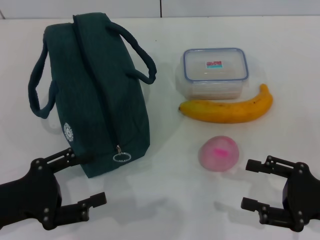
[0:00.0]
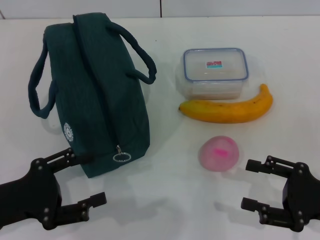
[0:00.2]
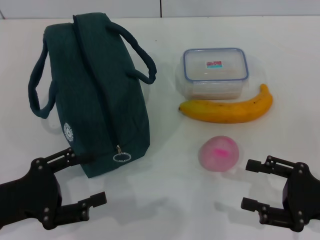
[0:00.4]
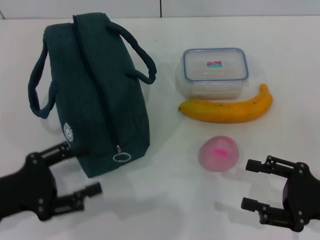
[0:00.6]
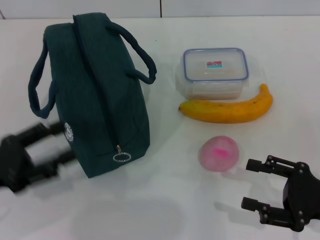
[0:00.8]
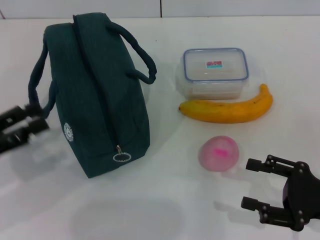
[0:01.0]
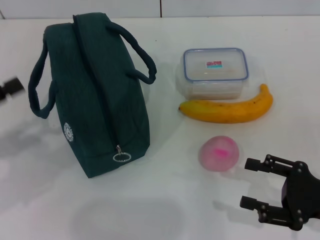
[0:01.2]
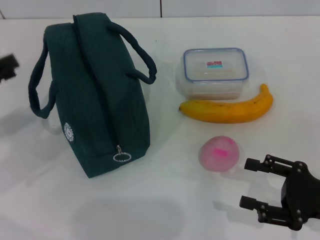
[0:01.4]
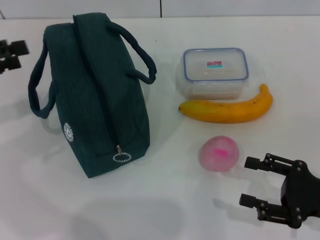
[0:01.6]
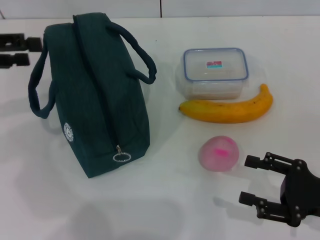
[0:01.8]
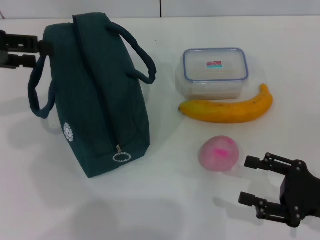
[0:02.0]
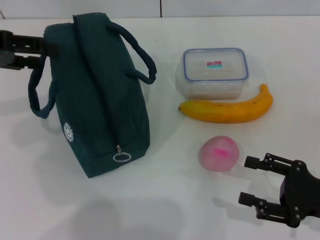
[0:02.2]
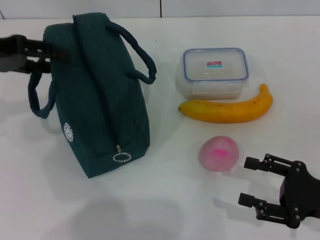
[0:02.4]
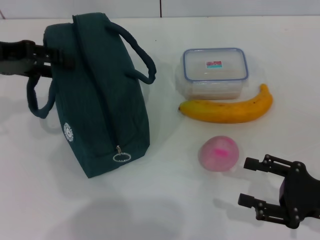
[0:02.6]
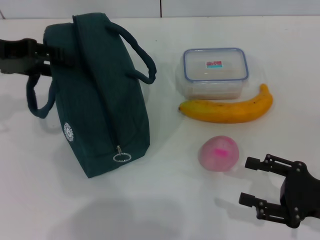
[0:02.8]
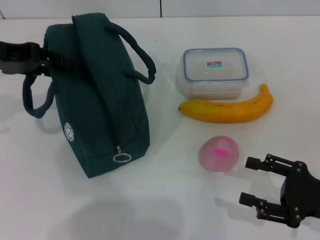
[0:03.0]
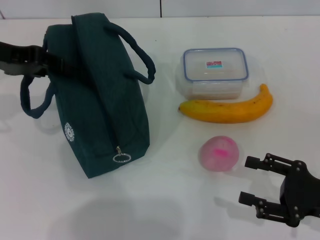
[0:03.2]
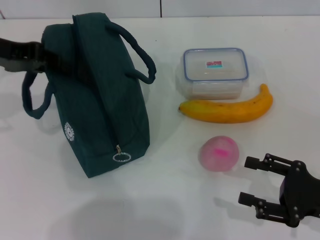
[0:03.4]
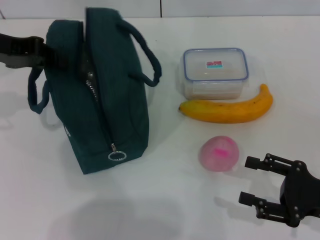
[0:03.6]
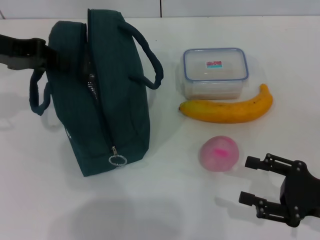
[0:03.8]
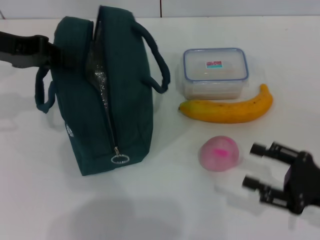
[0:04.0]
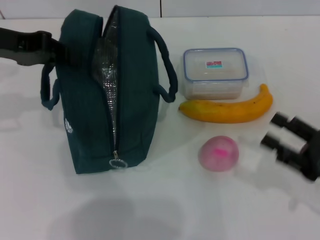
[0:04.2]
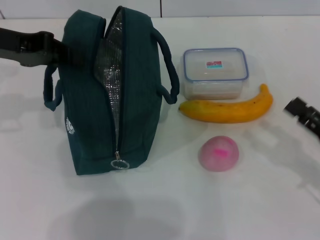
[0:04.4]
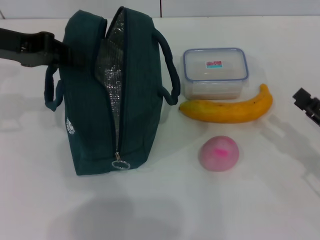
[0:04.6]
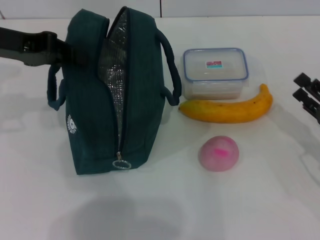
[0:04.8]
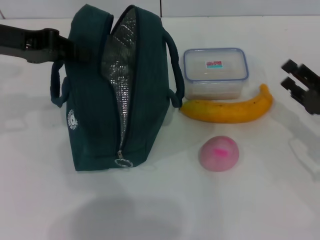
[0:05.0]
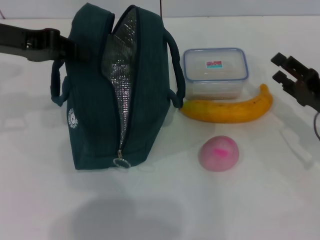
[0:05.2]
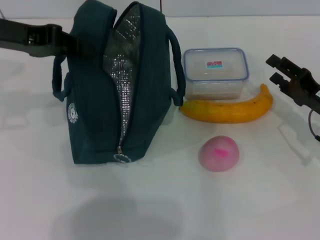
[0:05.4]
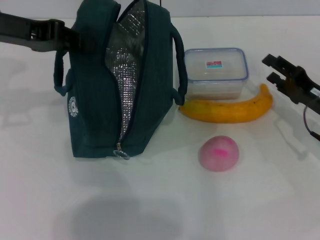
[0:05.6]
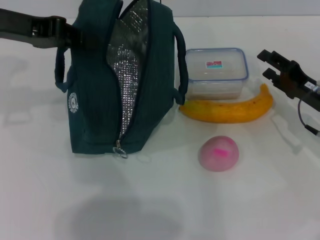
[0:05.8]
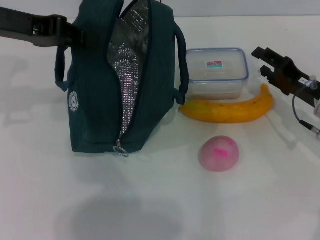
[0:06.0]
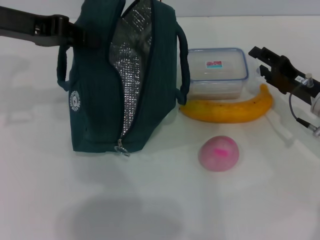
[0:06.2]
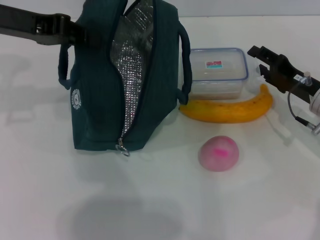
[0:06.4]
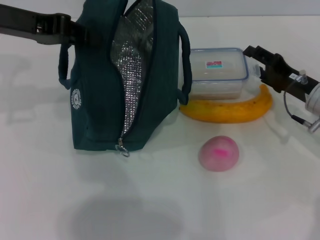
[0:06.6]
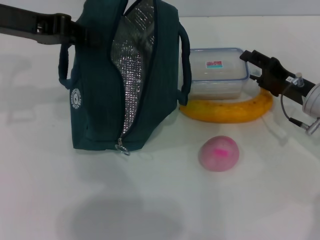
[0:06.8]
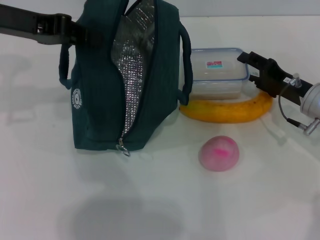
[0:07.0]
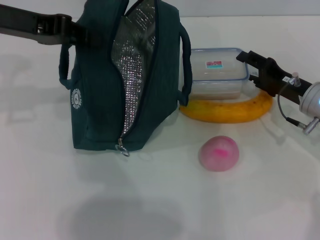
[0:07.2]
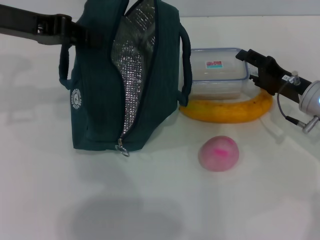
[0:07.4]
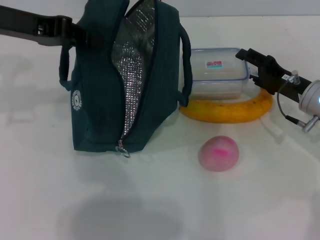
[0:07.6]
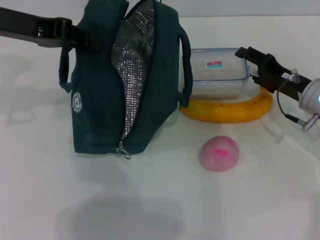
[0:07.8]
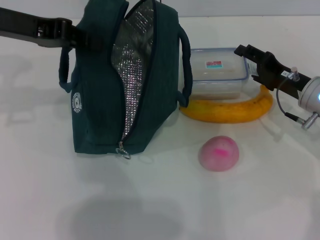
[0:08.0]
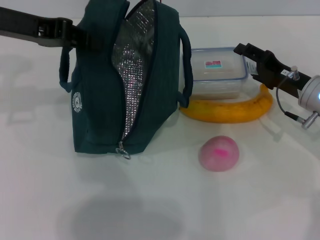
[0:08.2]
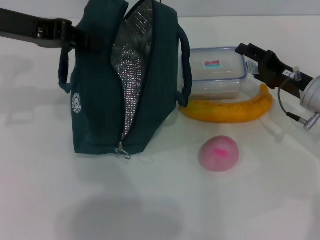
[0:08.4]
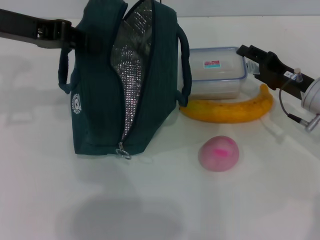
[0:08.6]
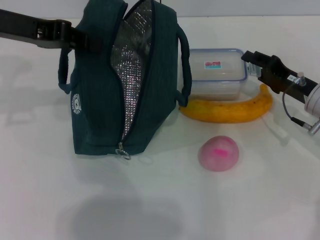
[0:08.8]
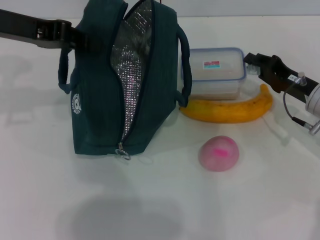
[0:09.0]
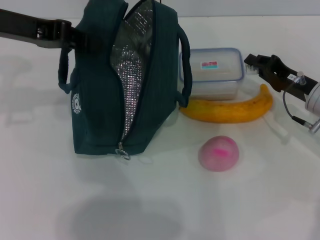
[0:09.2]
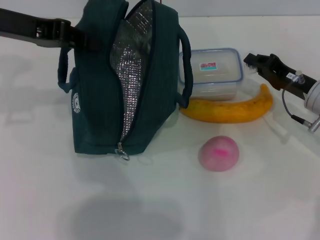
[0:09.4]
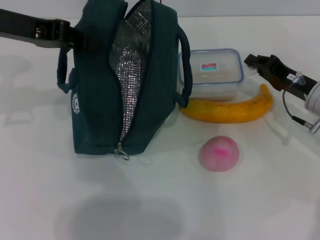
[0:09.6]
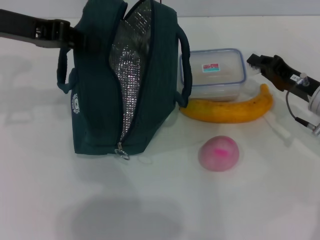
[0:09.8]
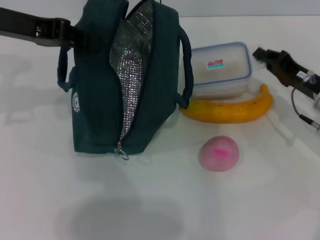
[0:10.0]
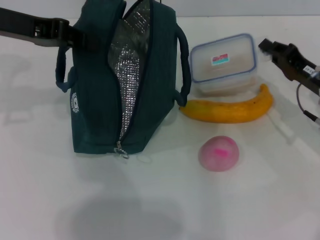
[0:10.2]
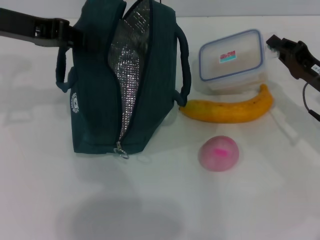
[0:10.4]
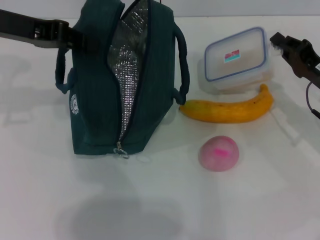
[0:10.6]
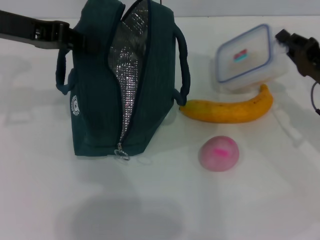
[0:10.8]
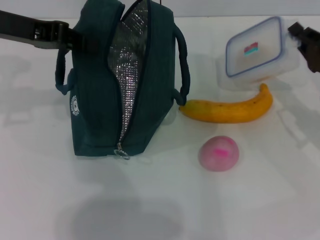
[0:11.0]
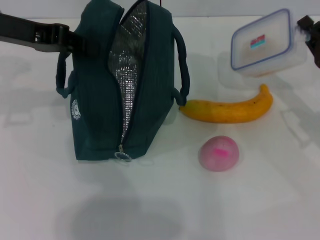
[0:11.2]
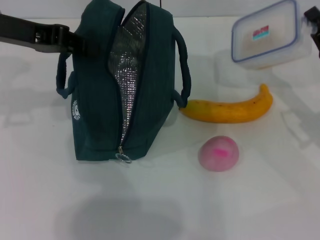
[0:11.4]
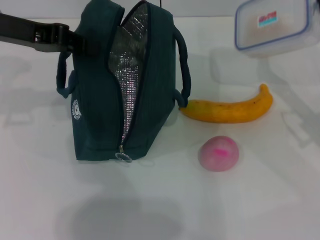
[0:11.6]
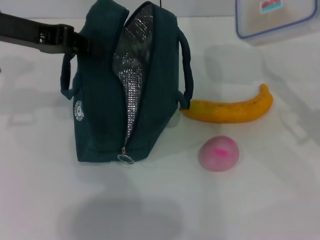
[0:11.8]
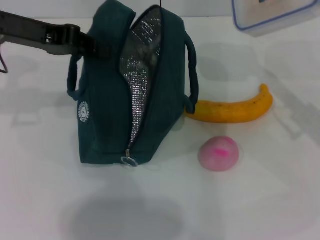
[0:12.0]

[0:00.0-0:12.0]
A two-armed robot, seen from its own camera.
Step, 0:00.0 to 0:04.0: Hold the lunch bag with your left hand.
Step, 0:04.2 to 0:10.0: Pick up the lunch box with your right hand.
0:00.0 to 0:01.6: The left gripper moves forward, upward and to the left, approximately 20 cm.
0:01.6 to 0:03.0: The left gripper shifts approximately 10 cm to the right and forward.
0:03.0 to 0:04.4: The left gripper closes.
0:04.4 to 0:06.0: The right gripper heads forward, covering about 15 cm.
0:06.0 to 0:07.6: There are only small adjustments of the grippers.
0:07.6 to 0:09.0: Both grippers stay about where they are.
0:09.0 to 0:10.4: The right gripper closes.
0:10.4 to 0:12.0: The right gripper goes about 5 cm upward.

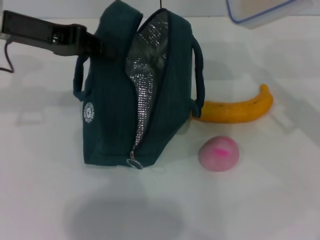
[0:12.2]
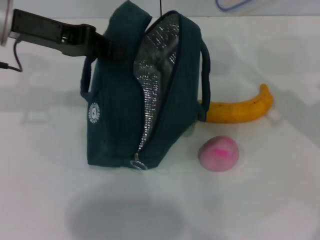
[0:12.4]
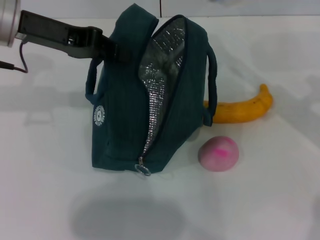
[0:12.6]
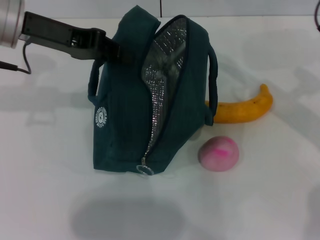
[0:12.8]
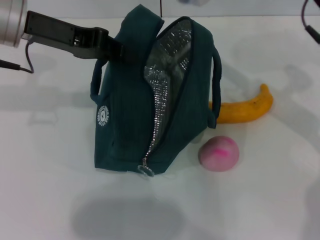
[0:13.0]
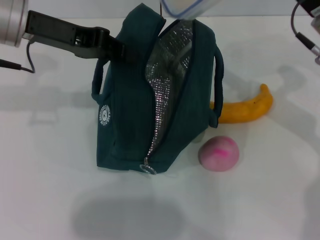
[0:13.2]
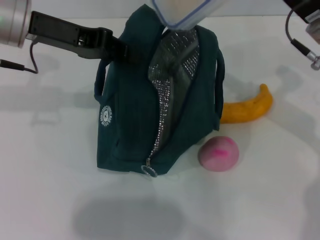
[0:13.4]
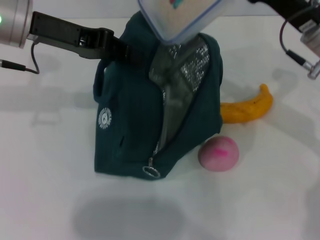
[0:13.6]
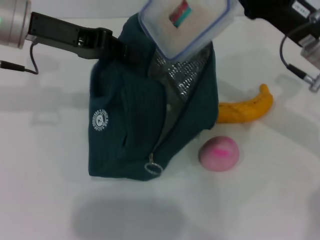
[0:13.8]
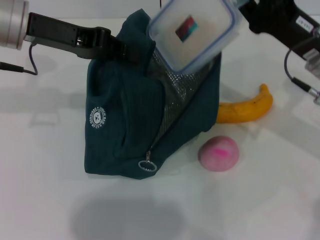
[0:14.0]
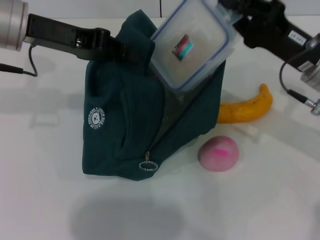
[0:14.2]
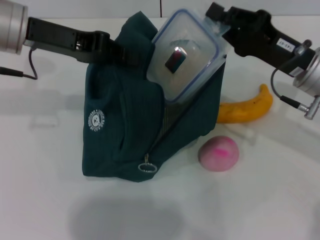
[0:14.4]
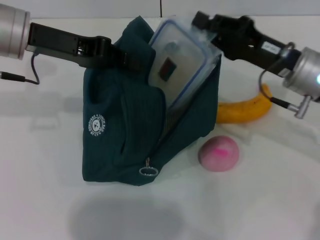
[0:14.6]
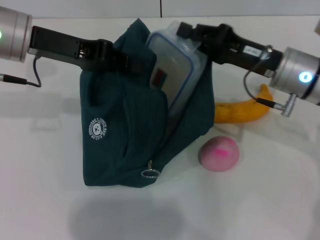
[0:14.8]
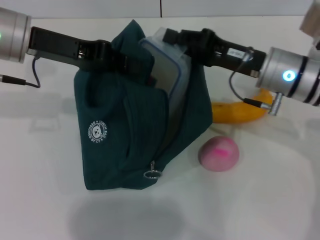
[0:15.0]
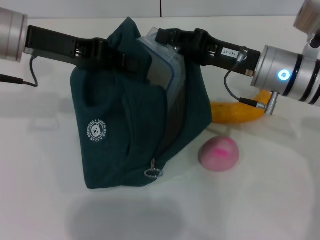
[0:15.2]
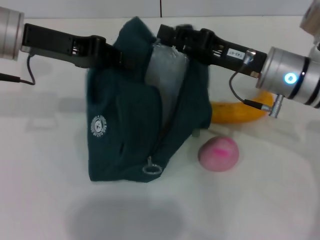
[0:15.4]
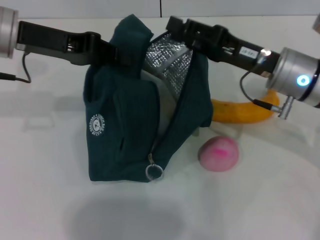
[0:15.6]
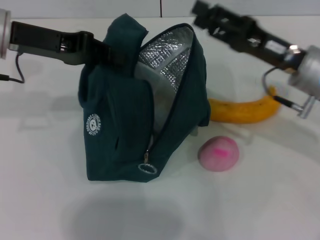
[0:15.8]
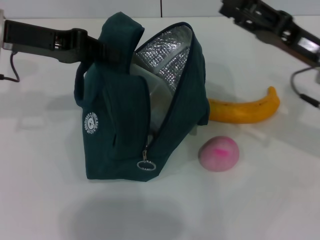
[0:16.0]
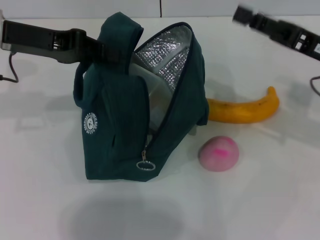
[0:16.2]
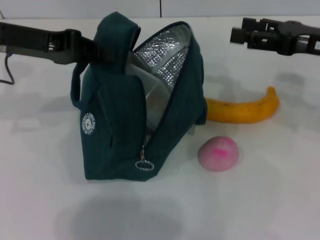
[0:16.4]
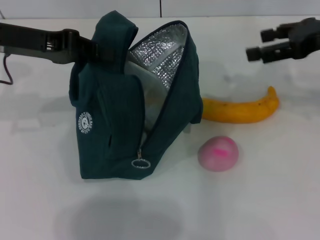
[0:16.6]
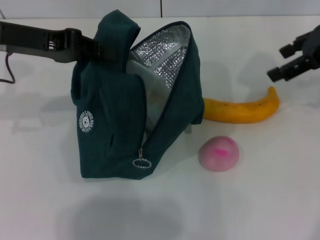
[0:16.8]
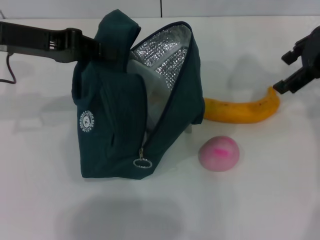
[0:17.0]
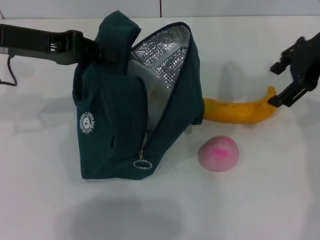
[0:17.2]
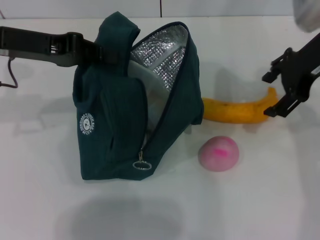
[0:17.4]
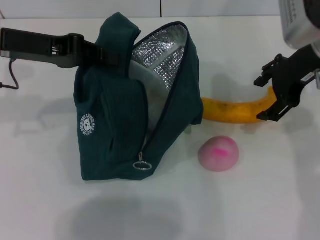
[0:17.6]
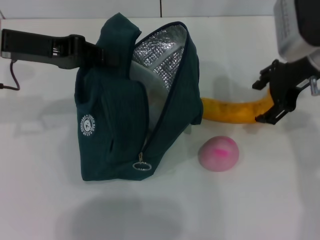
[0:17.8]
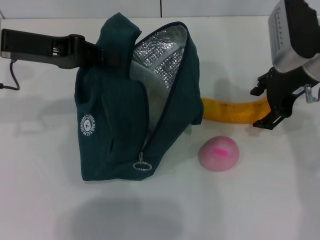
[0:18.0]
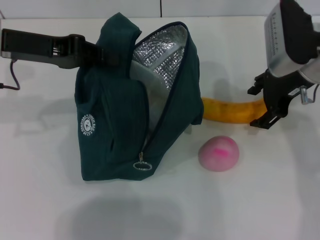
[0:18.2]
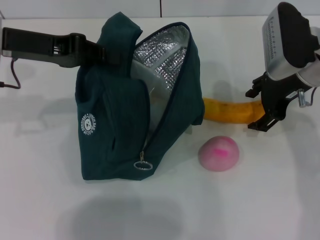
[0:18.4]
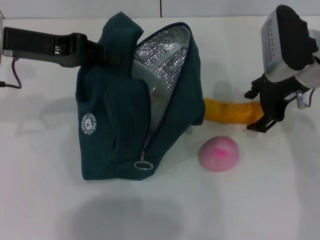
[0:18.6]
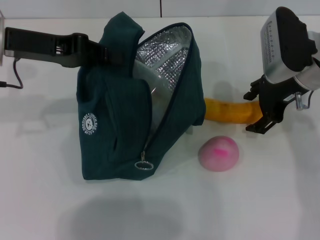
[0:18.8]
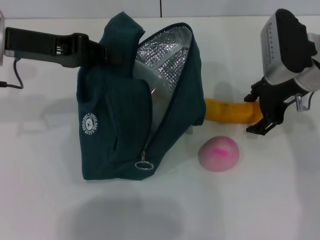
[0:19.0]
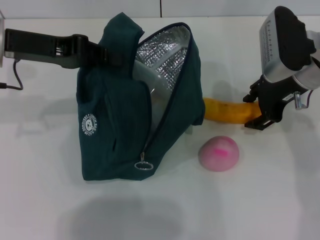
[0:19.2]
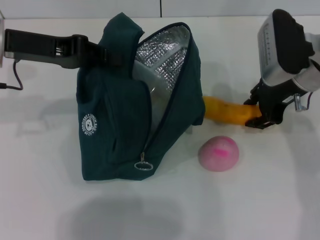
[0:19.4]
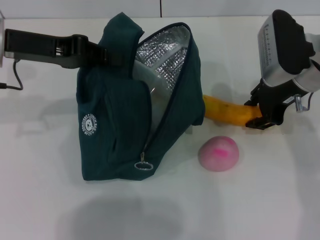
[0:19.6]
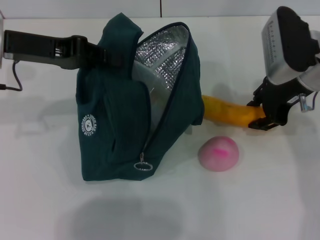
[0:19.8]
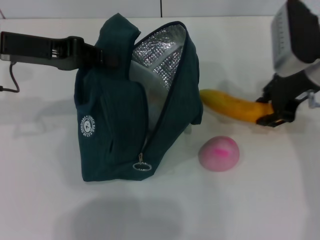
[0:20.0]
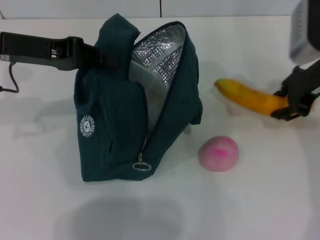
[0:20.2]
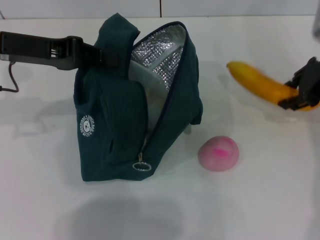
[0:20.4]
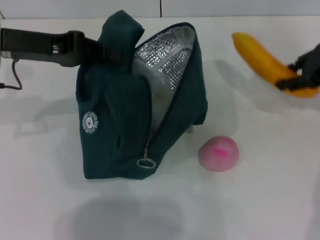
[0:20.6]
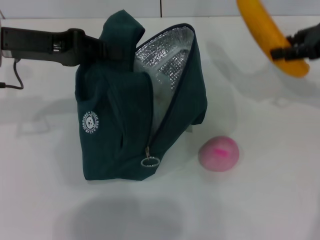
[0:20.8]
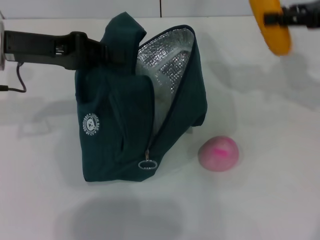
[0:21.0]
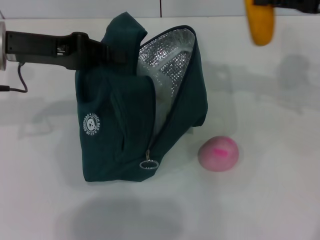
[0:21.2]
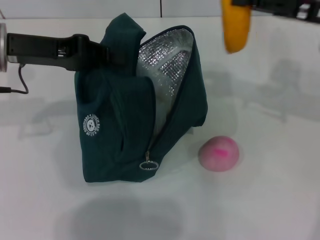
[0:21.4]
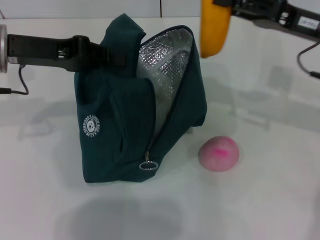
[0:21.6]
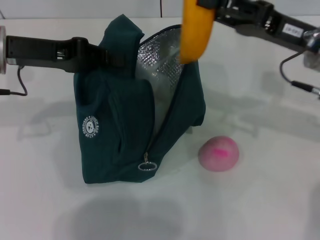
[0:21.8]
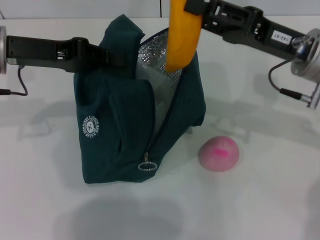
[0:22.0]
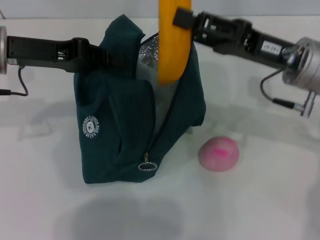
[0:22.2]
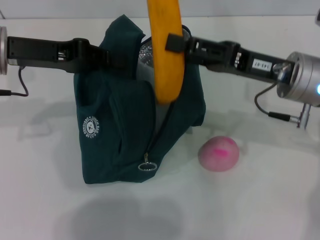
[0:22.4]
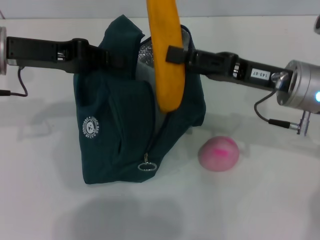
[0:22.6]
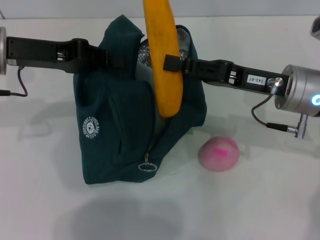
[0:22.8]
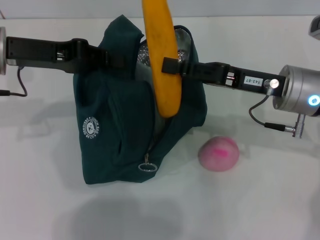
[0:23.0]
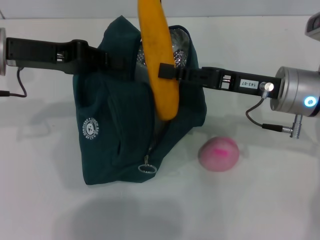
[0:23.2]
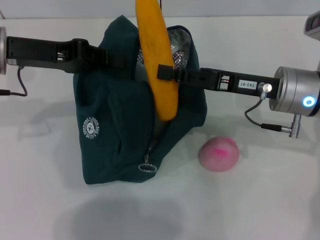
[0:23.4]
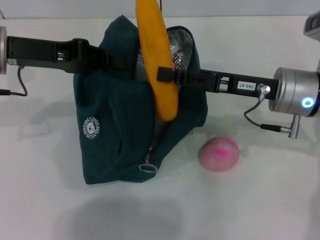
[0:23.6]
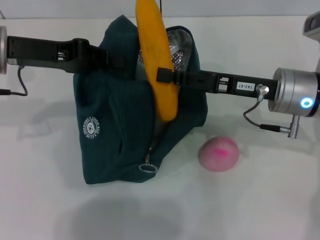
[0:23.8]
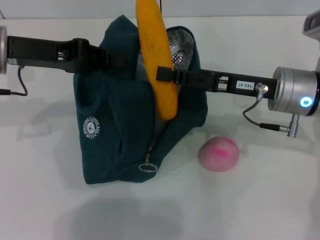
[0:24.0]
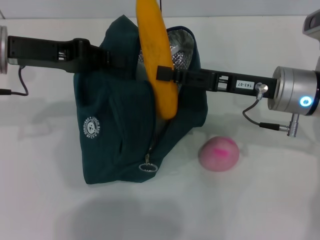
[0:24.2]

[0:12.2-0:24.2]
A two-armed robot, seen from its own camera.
Step, 0:12.2 to 0:15.4: Place the lunch box into the lunch bag with your right hand.
Step, 0:15.6 to 0:19.4: Take the banana with your right hand.
0:12.2 to 0:13.8: The right gripper goes about 5 cm to the left.
0:13.8 to 0:15.2: The right gripper goes some 5 cm to the left.
0:15.2 to 0:16.6: The right gripper shifts roughly 15 cm to the right and upward, and opens.
0:16.6 to 0:18.2: The right gripper travels to the left and downward by roughly 10 cm.
0:18.2 to 0:19.8: The right gripper closes.
0:19.8 to 0:21.2: The right gripper shifts about 10 cm to the right and upward.
0:21.2 to 0:22.6: The right gripper travels to the left and downward by approximately 15 cm.
0:22.6 to 0:24.2: The grippers make only small movements.
